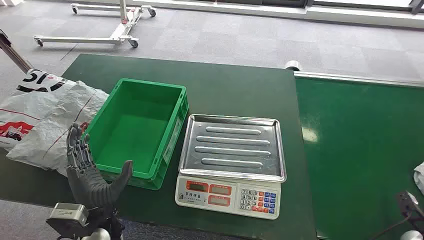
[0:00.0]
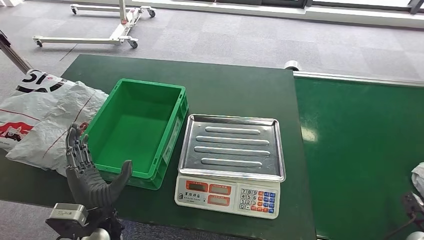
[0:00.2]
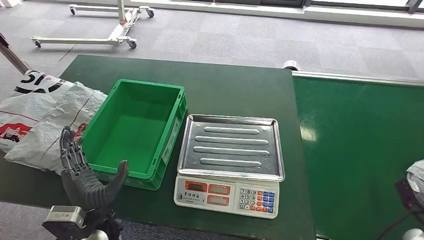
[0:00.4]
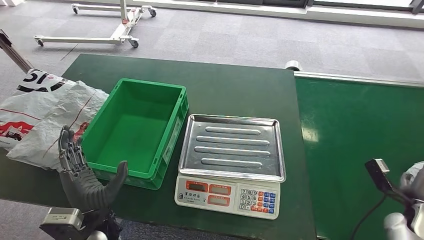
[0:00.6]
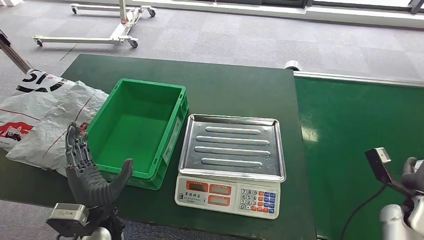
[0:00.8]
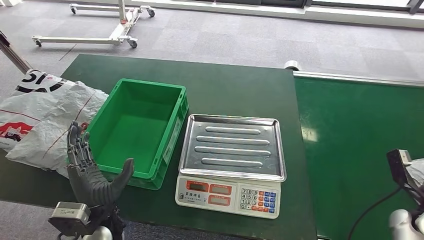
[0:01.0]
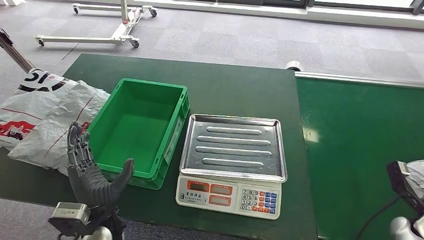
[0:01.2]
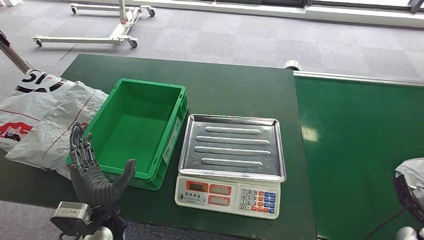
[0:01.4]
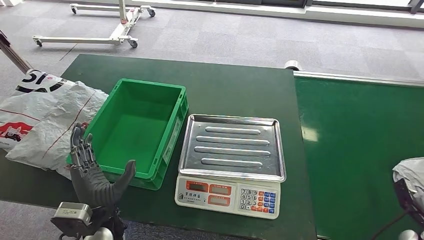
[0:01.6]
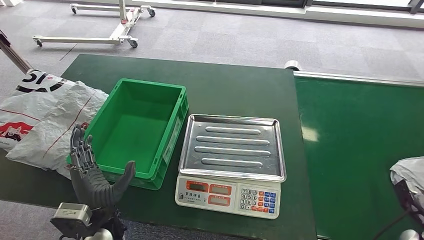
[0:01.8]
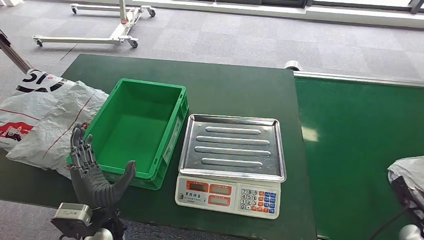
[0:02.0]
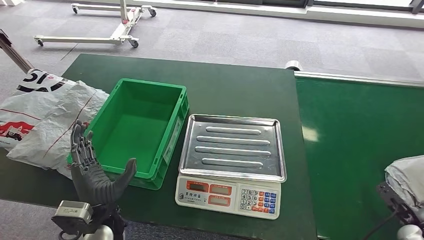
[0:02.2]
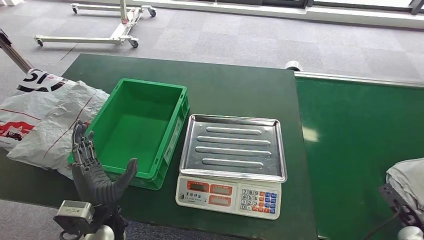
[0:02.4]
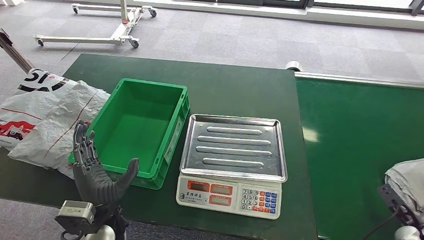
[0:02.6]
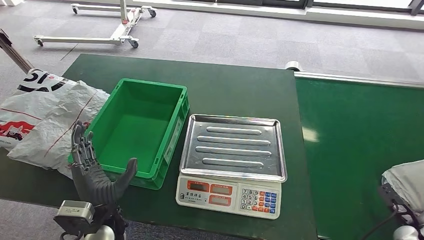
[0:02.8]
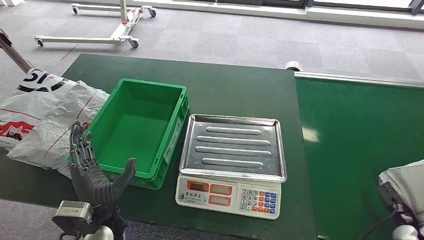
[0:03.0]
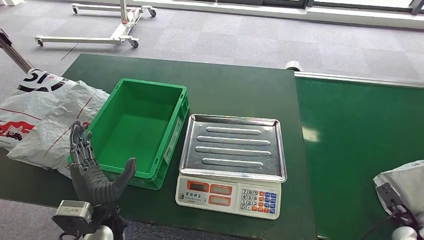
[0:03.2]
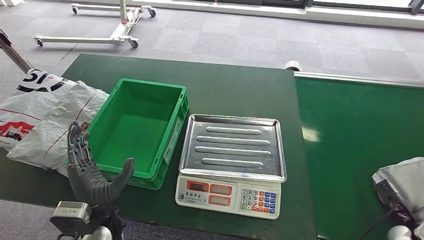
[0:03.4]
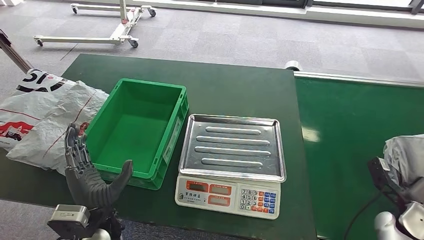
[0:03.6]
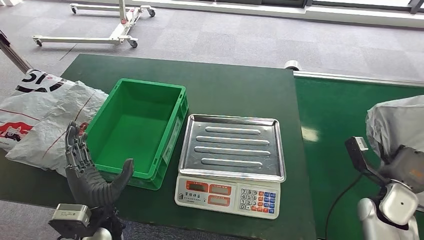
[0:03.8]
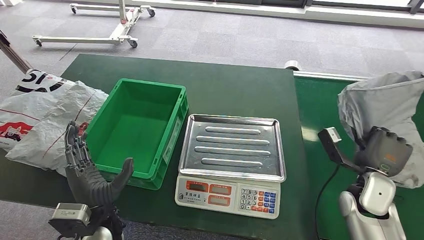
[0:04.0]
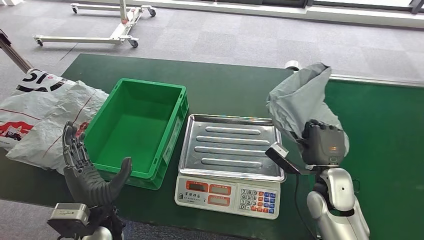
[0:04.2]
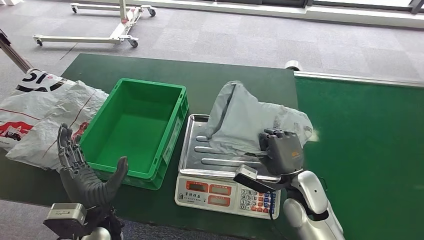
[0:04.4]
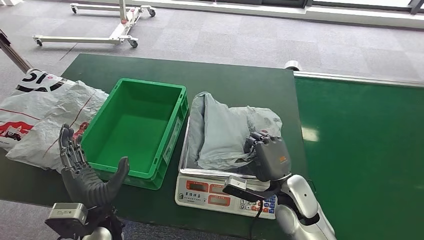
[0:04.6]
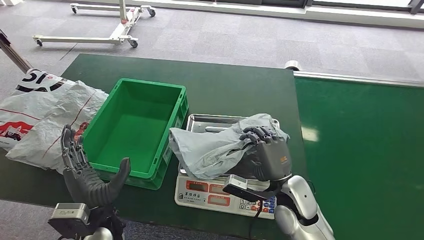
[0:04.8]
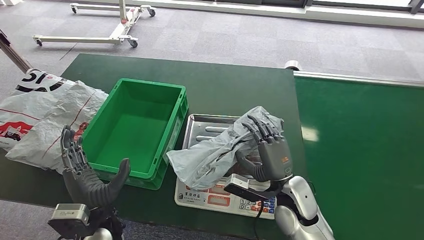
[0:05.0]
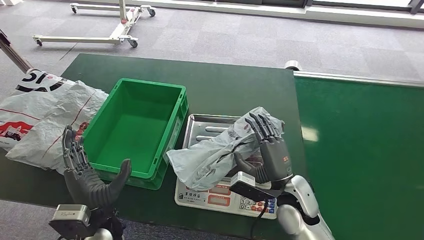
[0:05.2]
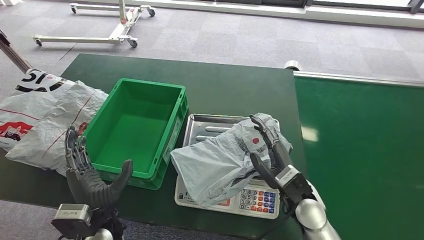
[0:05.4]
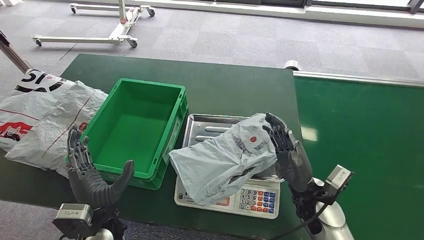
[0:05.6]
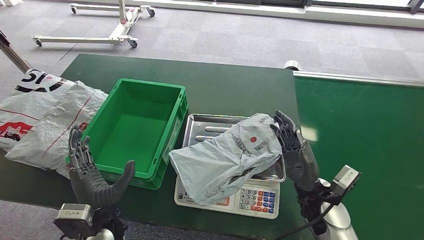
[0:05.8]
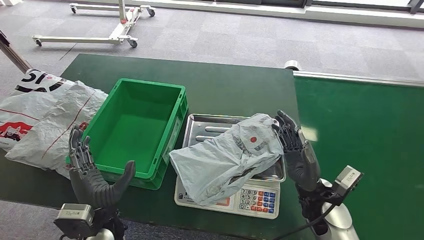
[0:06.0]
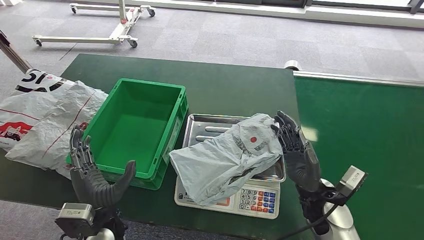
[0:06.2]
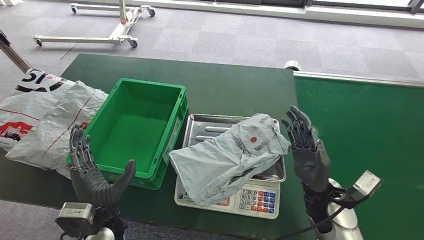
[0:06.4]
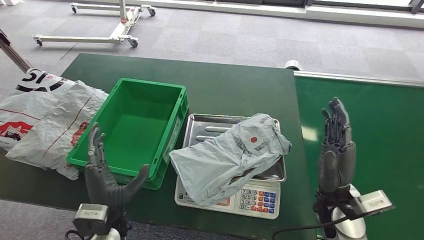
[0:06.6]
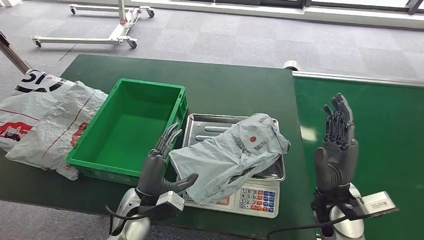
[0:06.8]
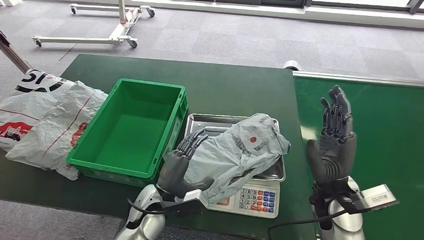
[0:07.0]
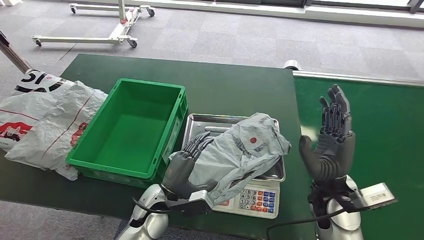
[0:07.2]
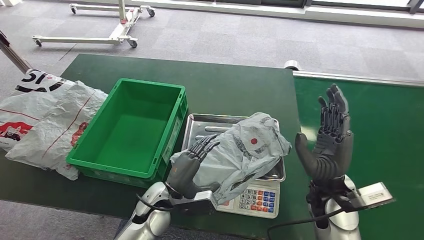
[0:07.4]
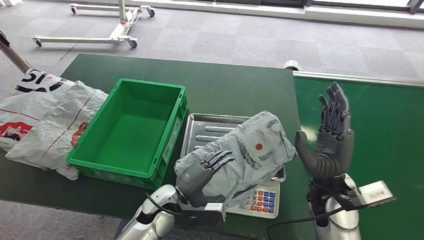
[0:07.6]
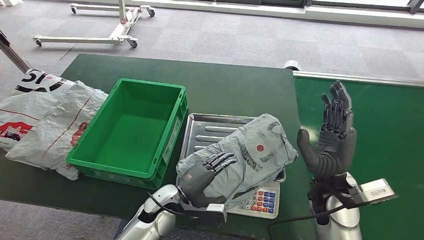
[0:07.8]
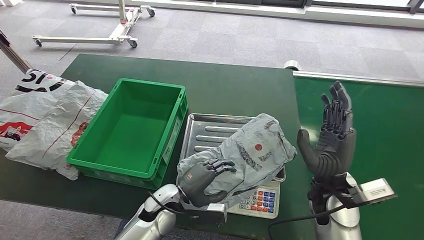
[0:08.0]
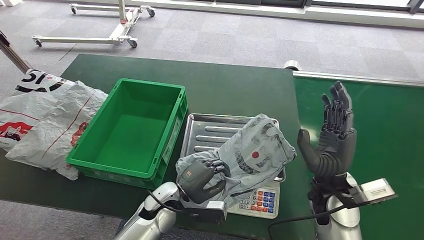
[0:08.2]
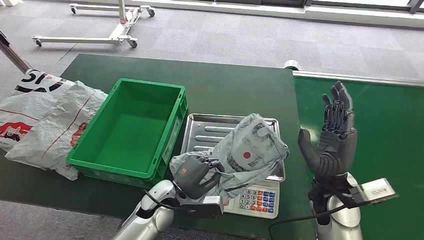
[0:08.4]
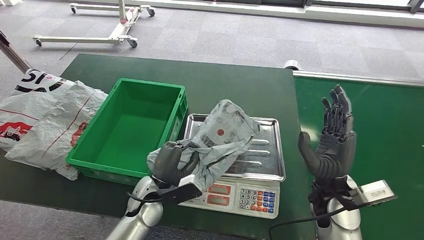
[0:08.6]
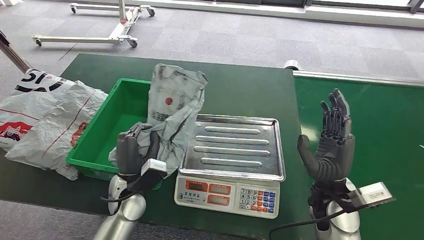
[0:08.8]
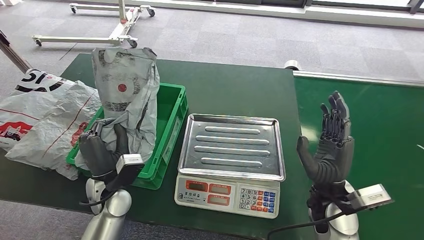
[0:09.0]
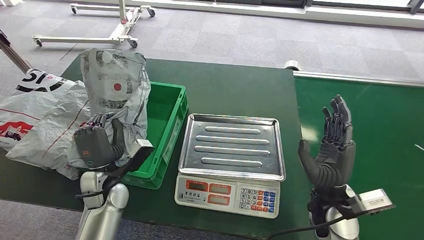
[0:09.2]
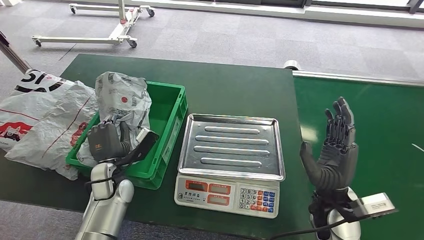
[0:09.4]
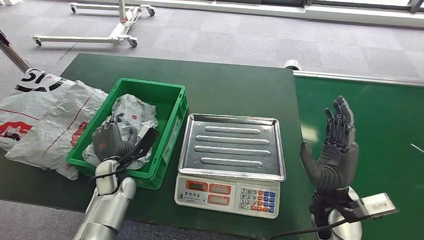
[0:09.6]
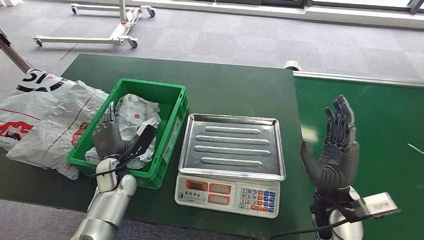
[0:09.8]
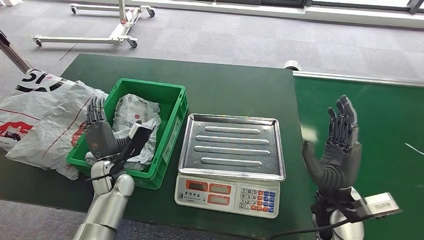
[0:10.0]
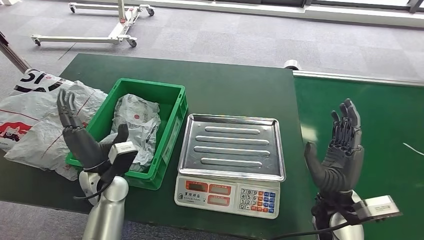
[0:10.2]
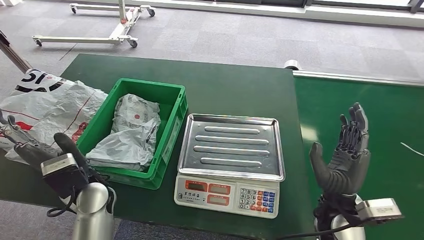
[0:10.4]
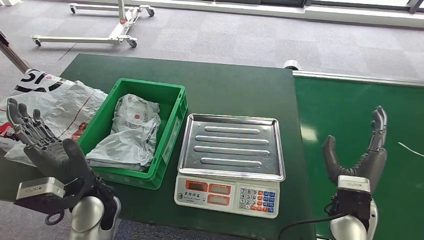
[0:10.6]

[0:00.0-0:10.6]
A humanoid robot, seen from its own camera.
Step, 0:00.0 to 0:03.6: Pick up the package from the conveyor belt.
Step, 0:04.0 to 0:05.6: Place the package onto the inbound machine.
Step, 0:05.8 to 0:08.8: Pick up the package from the inbound machine.
Step, 0:09.2 to 0:10.6: Place the package into the parcel locker.
0:03.0 to 0:04.6: The right hand moves to the left, approximately 35 cm.
0:04.6 to 0:06.0: The right hand moves to the right, some 5 cm.
0:06.0 to 0:07.6: The right hand is displaced upward by about 5 cm. Meanwhile the left hand shifts approximately 15 cm to the right, forward and downward.
0:07.6 to 0:09.0: The left hand shifts some 15 cm to the left and upward.
0:09.0 to 0:10.6: The left hand shifts some 5 cm upward.
